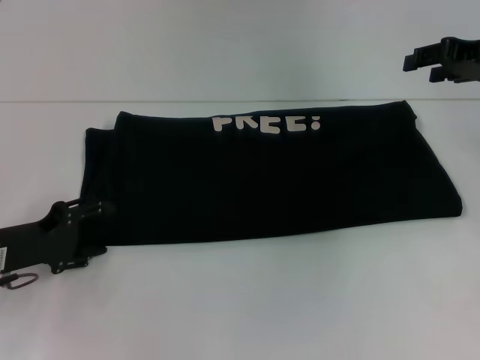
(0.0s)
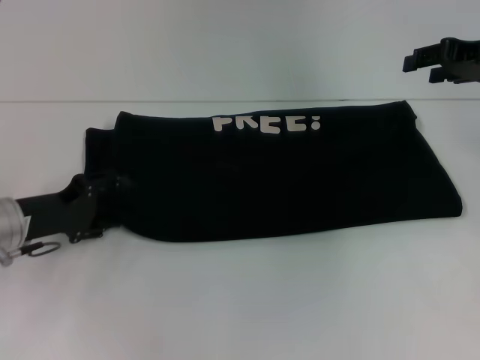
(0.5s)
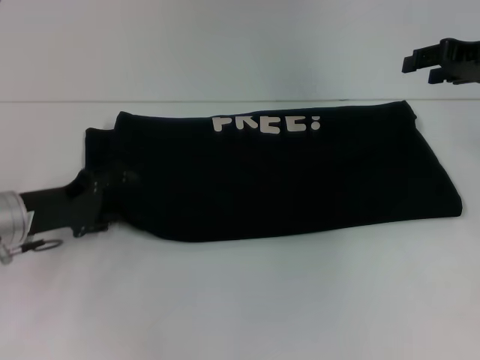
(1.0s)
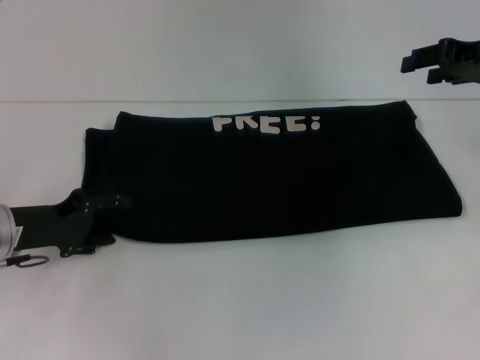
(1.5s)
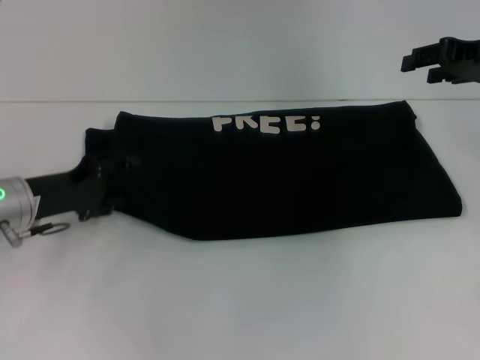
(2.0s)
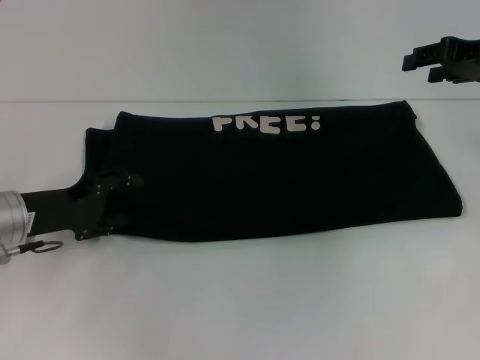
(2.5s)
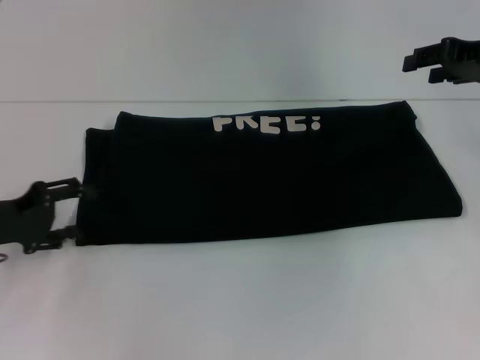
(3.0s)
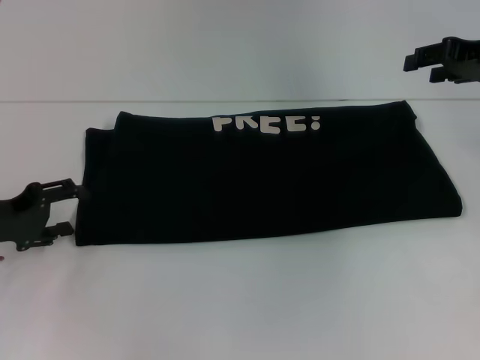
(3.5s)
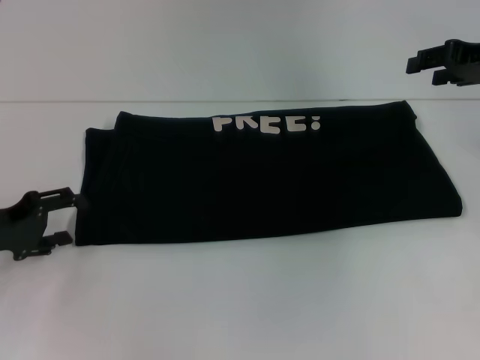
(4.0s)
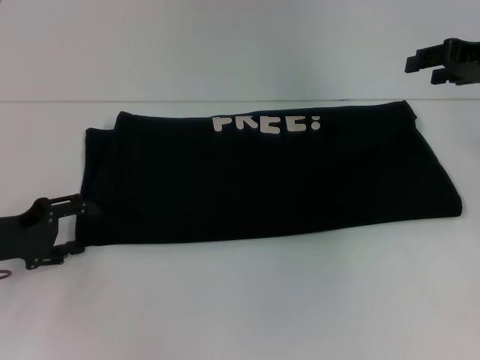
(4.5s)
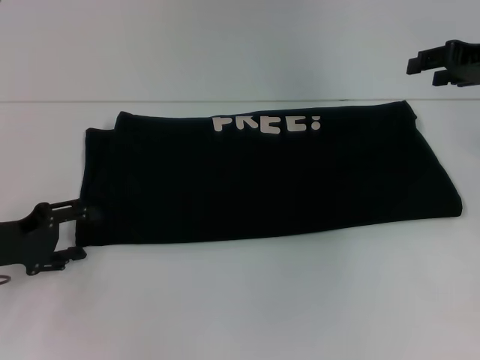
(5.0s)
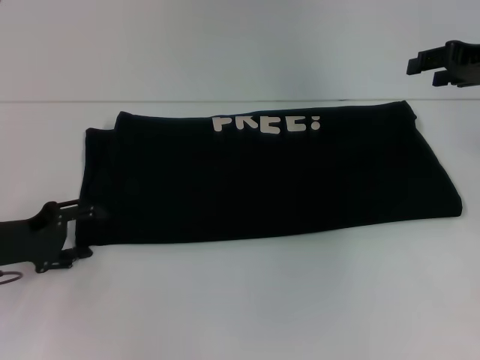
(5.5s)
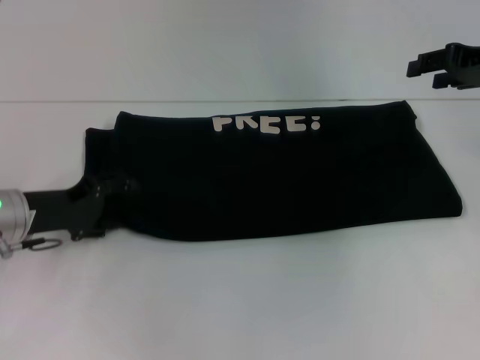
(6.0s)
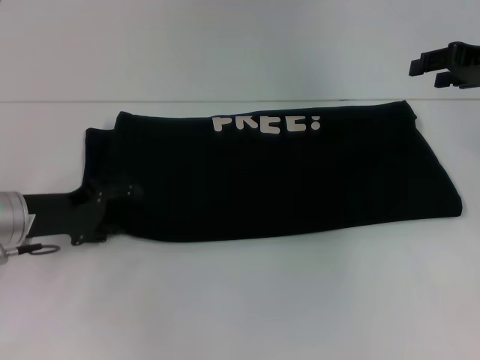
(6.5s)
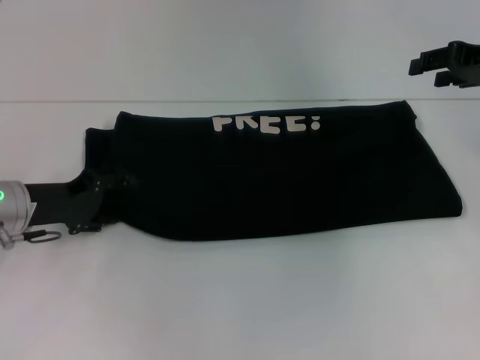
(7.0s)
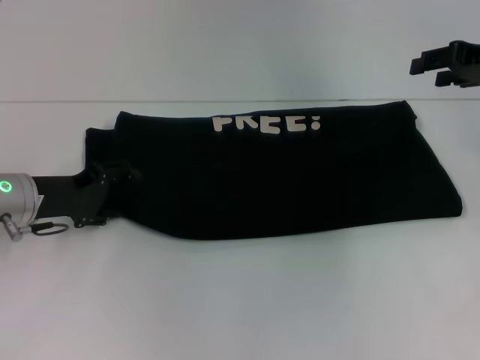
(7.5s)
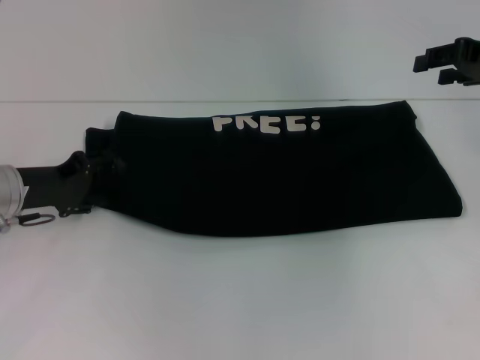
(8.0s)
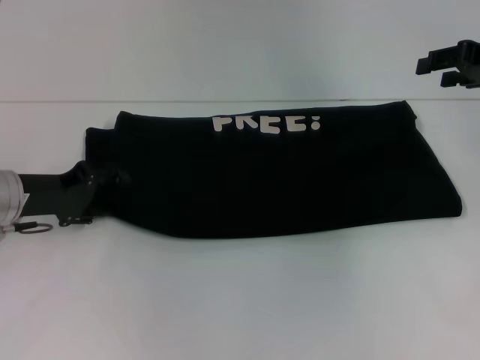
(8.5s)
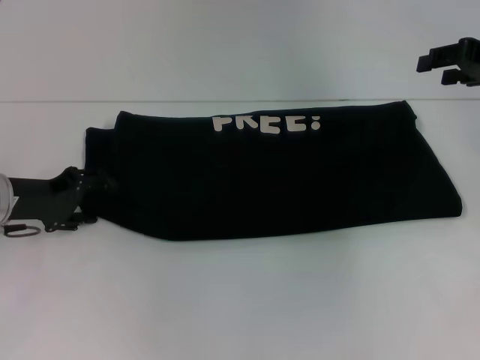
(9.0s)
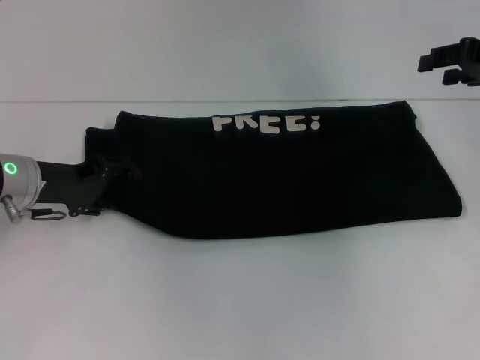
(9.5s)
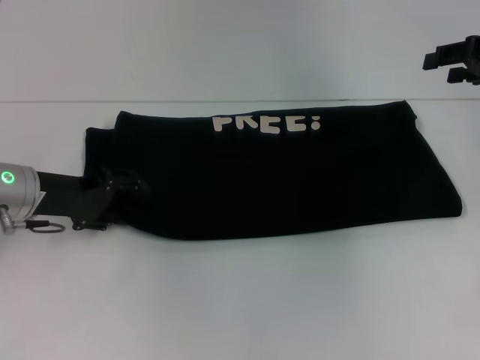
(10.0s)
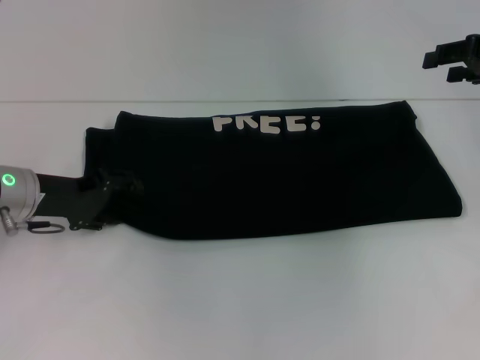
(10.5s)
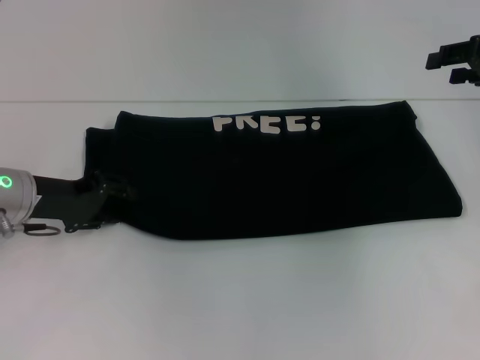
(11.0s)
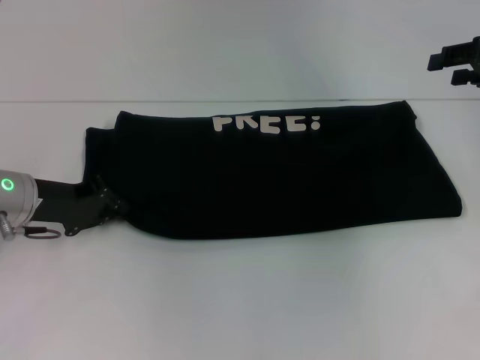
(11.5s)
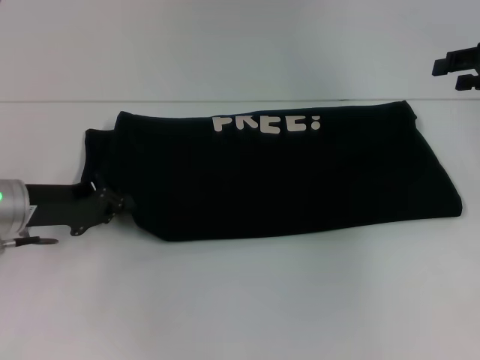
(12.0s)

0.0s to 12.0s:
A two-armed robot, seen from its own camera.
0.0s to 2.0s: The left gripper moves approximately 5 cm.
2.0s to 4.0s: The left gripper heads to the left, covering about 5 cm.
4.0s to 6.0s: The left gripper shifts approximately 5 cm to the right.
6.0s to 10.0s: The grippers stay close to where they were, moving slightly.
10.0s to 12.0s: The left gripper closes.

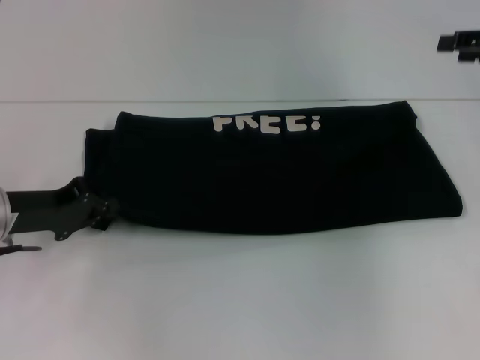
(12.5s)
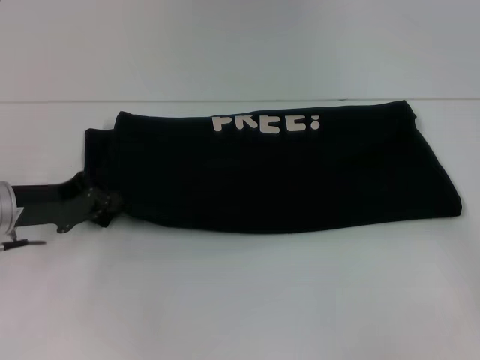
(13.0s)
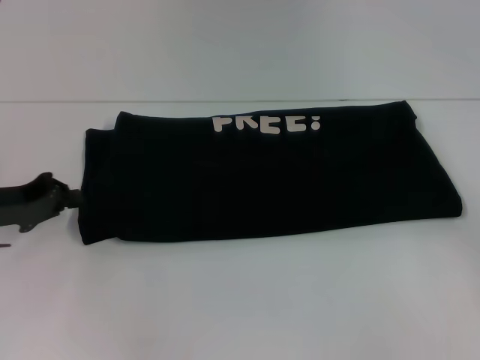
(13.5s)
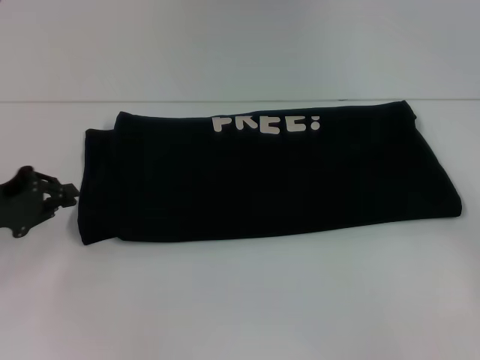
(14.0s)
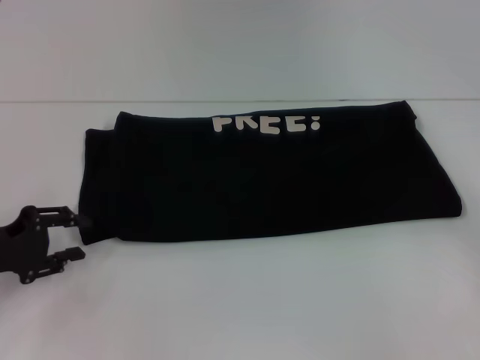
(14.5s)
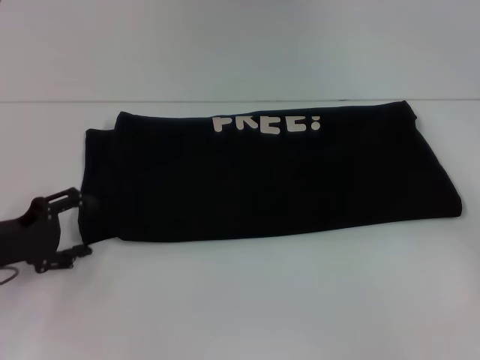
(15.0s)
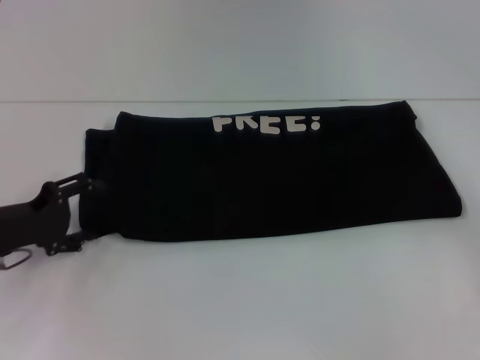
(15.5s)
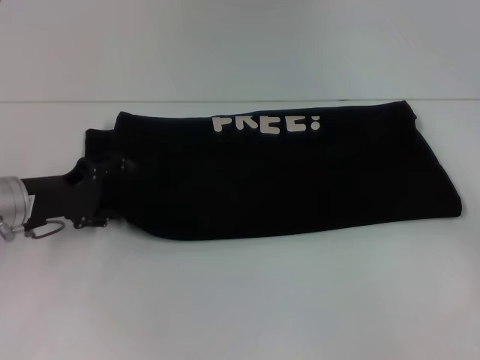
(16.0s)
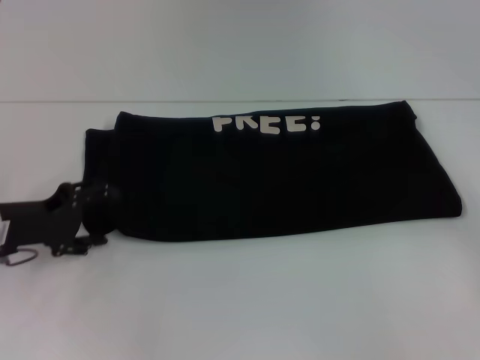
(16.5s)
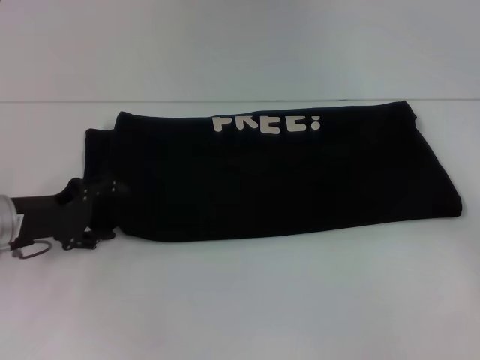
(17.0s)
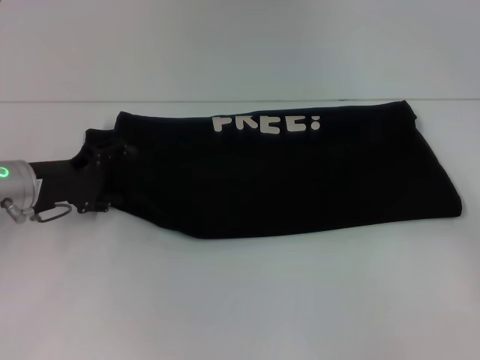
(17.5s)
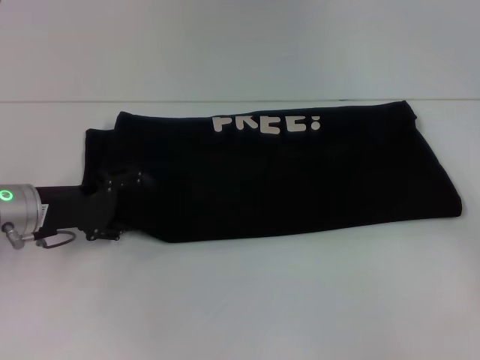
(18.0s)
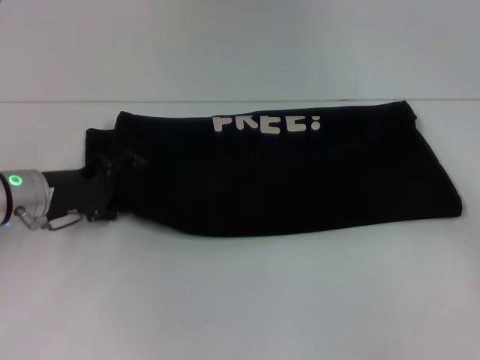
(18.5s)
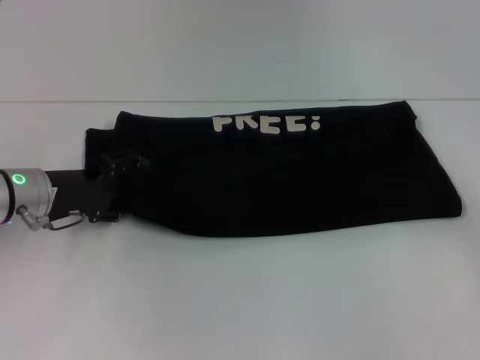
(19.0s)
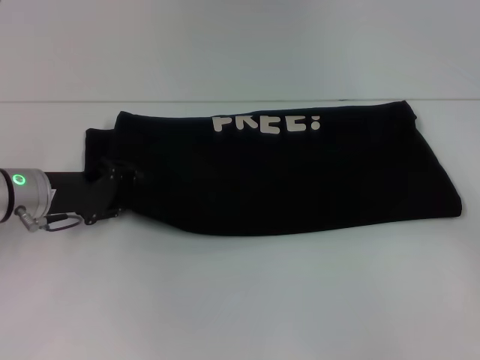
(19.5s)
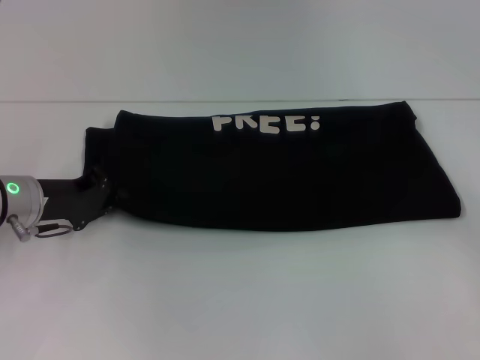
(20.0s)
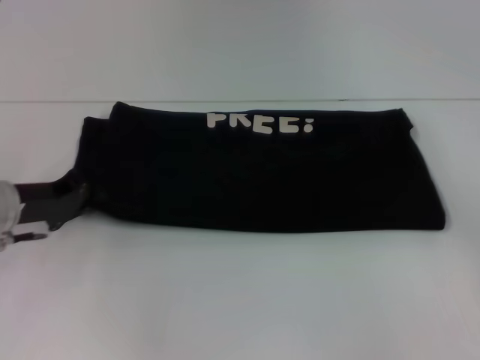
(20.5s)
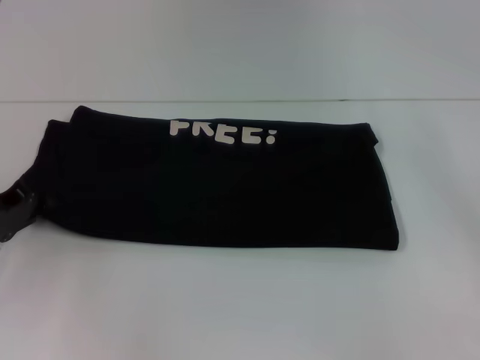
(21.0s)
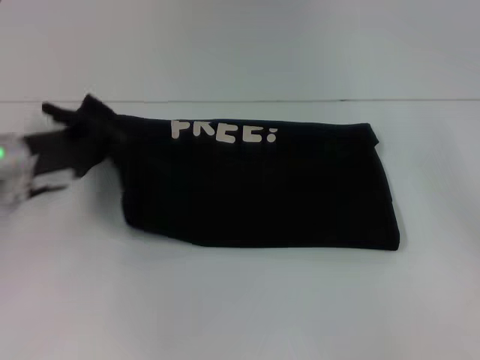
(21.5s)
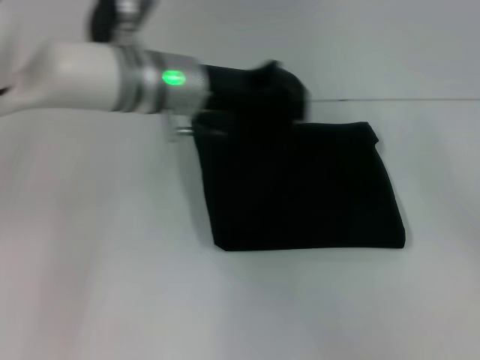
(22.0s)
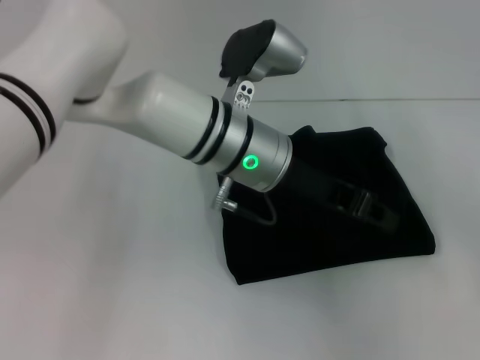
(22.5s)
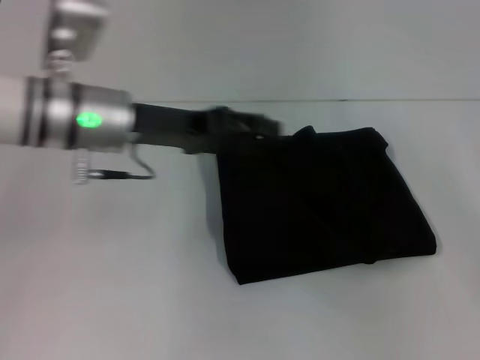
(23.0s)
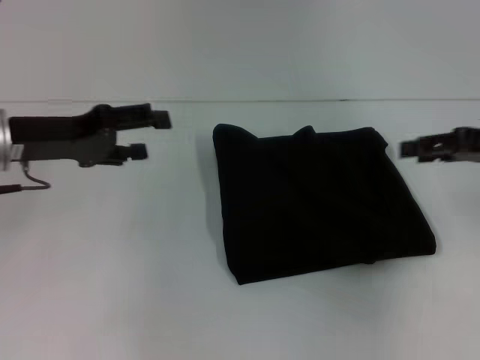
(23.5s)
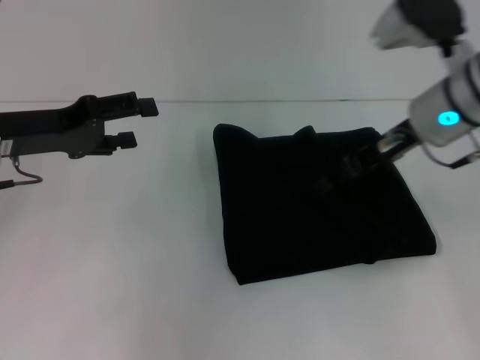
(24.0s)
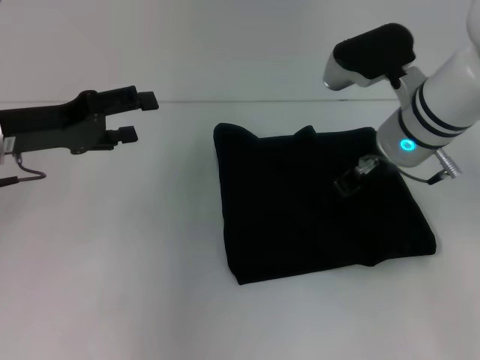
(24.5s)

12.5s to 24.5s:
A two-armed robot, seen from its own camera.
Step, 12.5s to 22.5s: Fold the clothes with your left hand.
12.5s to 14.5s: The left gripper is displaced backward by about 5 cm; the right gripper heads backward, to the right and downward, covering approximately 20 cm.
14.5s to 16.5s: The left gripper opens its fingers.
16.5s to 18.5s: The left gripper changes place by roughly 5 cm.
18.5s to 20.5s: The left gripper closes up.
20.5s to 22.5s: The left gripper heads to the right, covering roughly 25 cm.
22.5s to 24.5s: The right gripper is displaced to the left and forward by approximately 30 cm. The left gripper moves to the left, some 25 cm, and opens up.

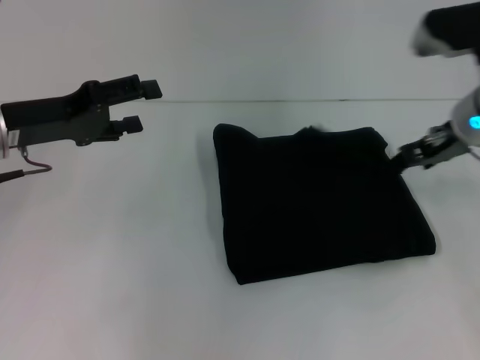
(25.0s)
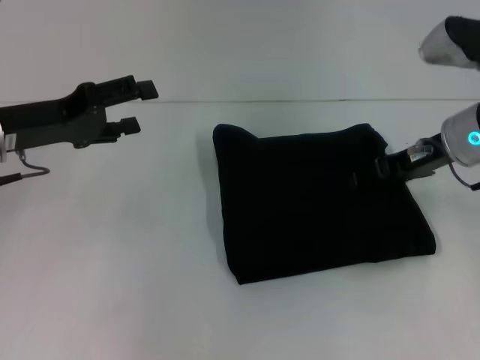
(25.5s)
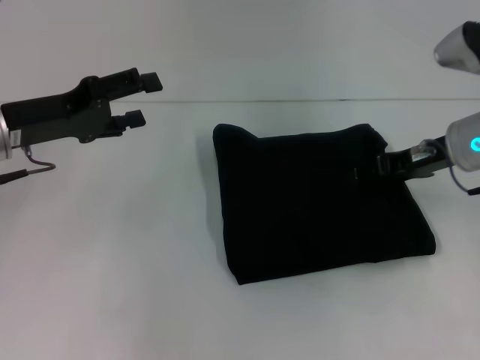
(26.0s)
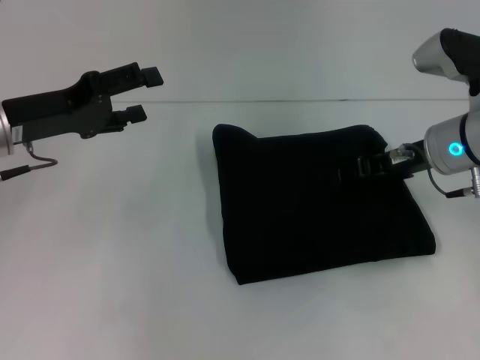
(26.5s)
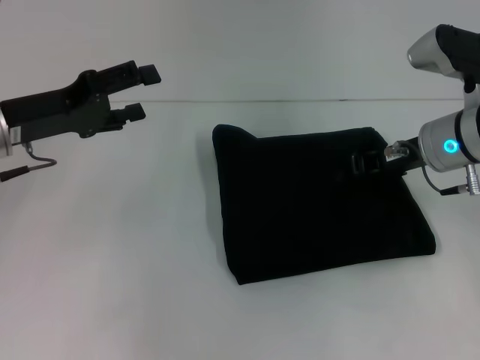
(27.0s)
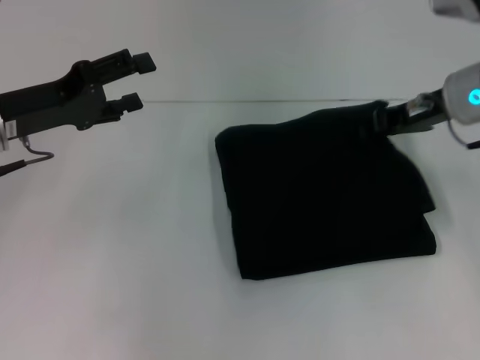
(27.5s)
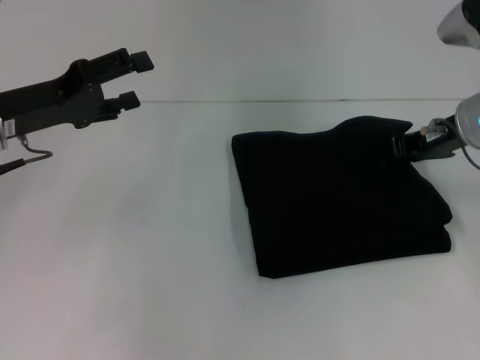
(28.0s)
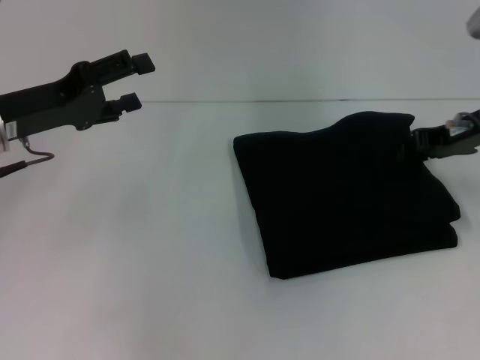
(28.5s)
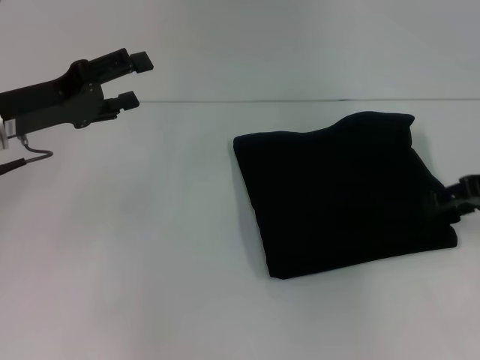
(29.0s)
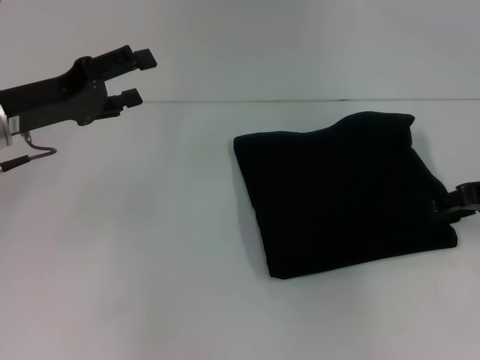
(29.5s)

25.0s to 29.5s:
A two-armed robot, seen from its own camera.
25.0s to 27.0s: The right gripper closes up.
27.0s to 29.5s: The right gripper heads to the right, covering some 10 cm, and opens its fingers.
